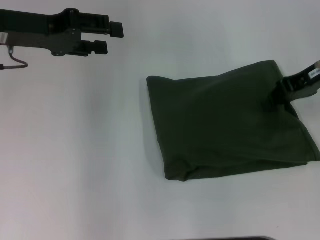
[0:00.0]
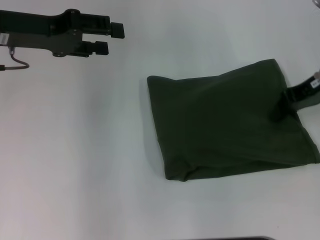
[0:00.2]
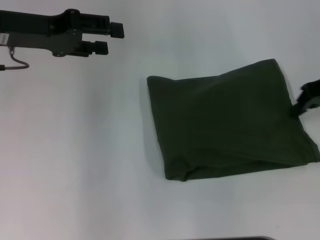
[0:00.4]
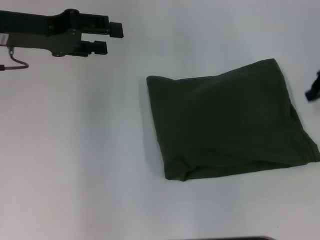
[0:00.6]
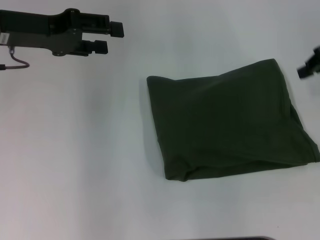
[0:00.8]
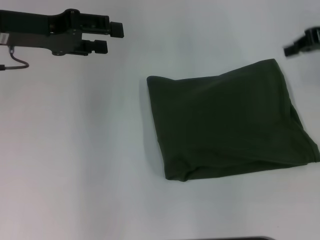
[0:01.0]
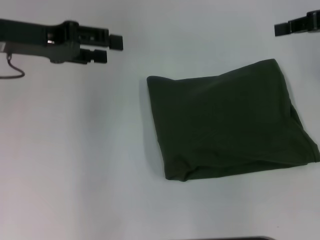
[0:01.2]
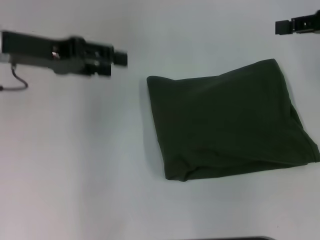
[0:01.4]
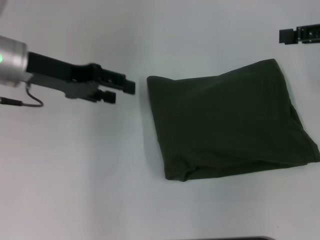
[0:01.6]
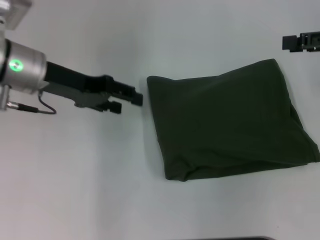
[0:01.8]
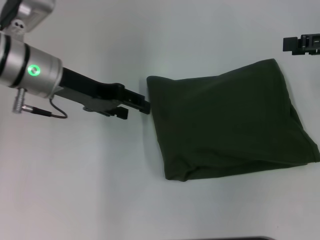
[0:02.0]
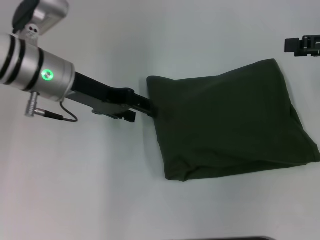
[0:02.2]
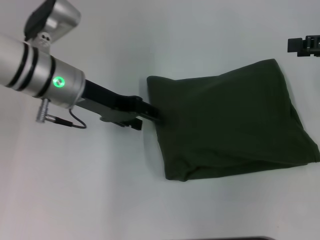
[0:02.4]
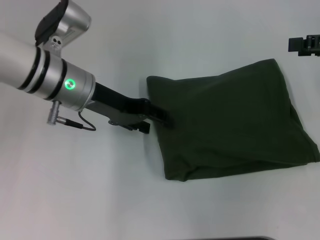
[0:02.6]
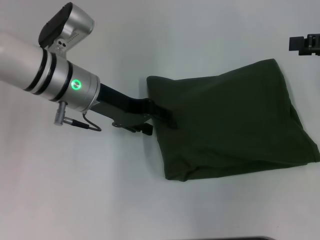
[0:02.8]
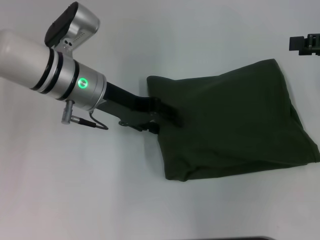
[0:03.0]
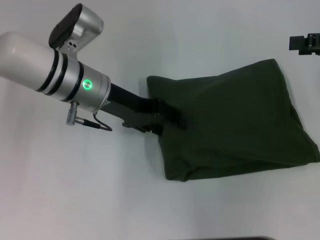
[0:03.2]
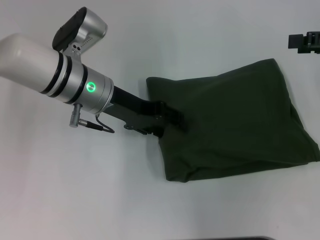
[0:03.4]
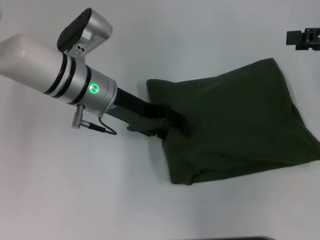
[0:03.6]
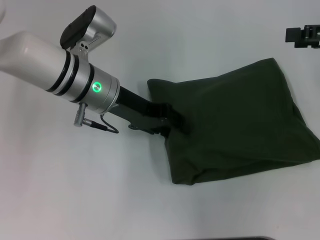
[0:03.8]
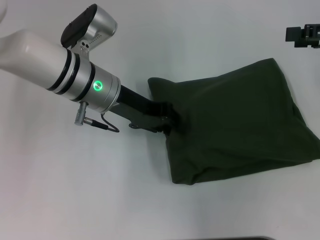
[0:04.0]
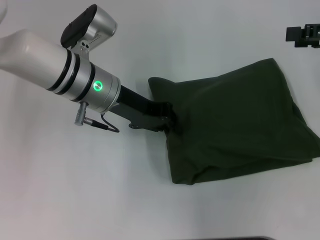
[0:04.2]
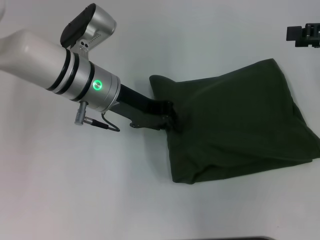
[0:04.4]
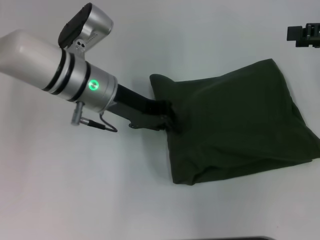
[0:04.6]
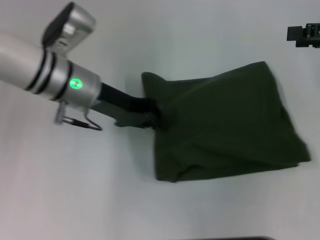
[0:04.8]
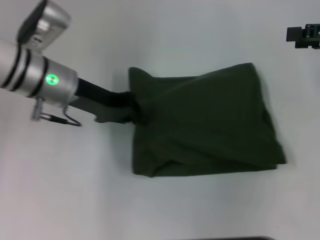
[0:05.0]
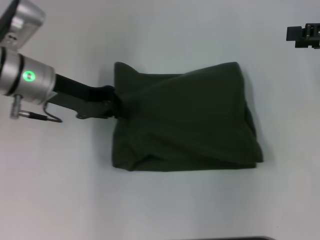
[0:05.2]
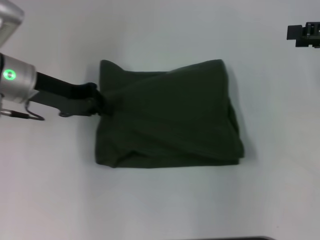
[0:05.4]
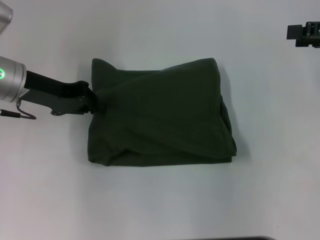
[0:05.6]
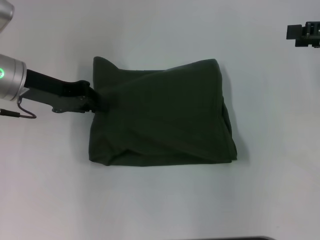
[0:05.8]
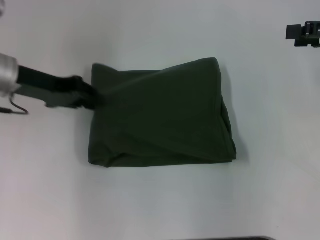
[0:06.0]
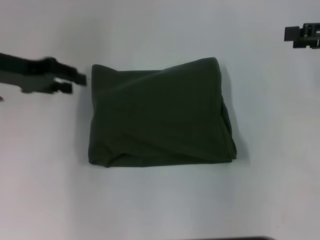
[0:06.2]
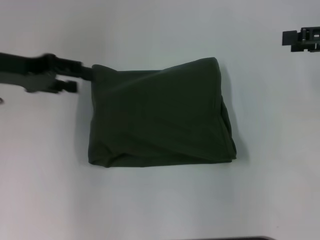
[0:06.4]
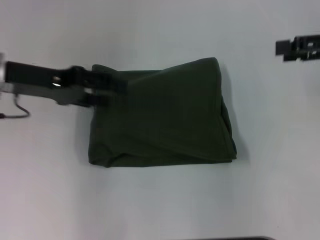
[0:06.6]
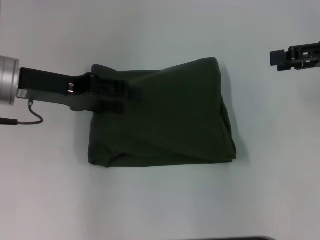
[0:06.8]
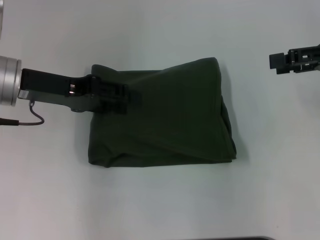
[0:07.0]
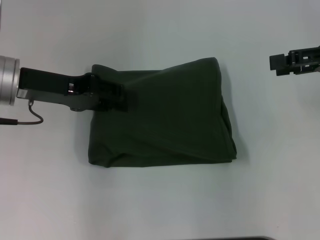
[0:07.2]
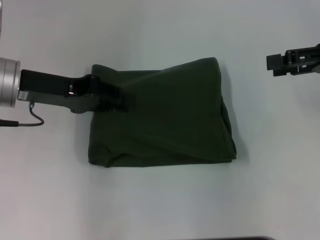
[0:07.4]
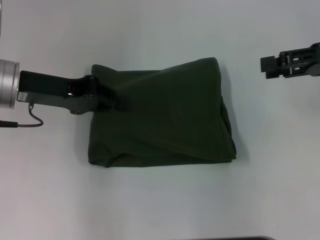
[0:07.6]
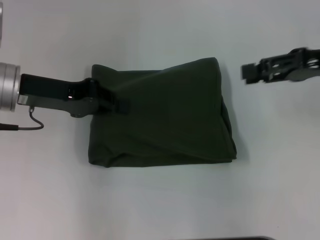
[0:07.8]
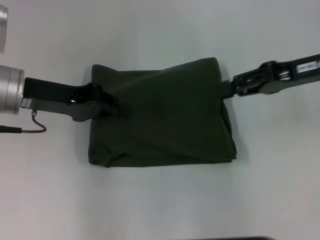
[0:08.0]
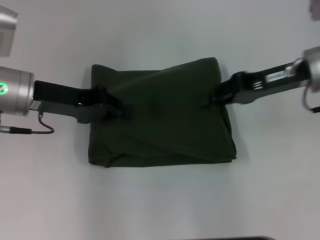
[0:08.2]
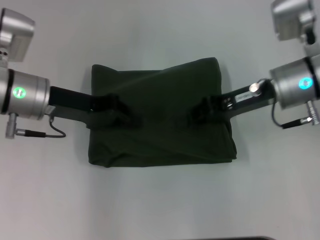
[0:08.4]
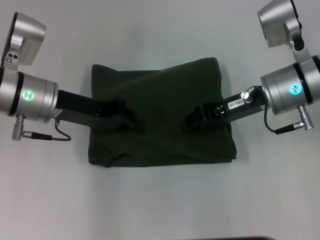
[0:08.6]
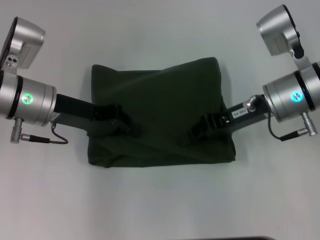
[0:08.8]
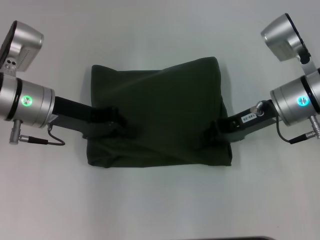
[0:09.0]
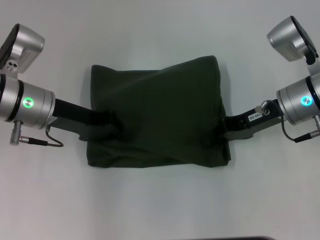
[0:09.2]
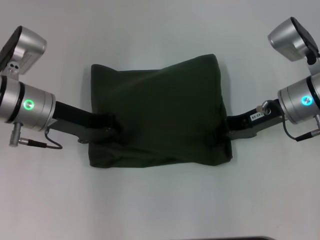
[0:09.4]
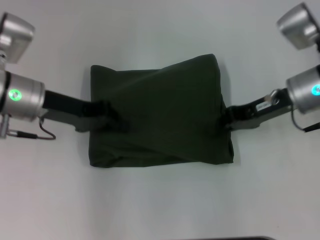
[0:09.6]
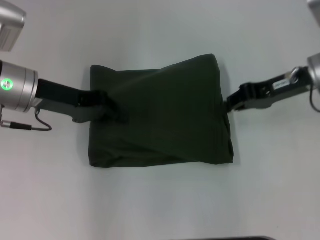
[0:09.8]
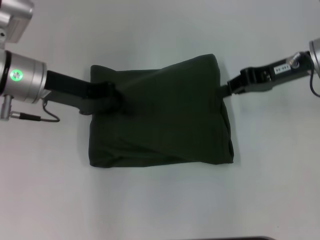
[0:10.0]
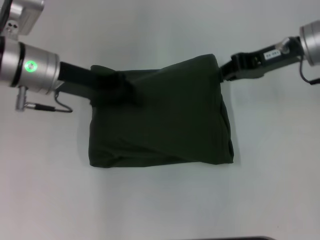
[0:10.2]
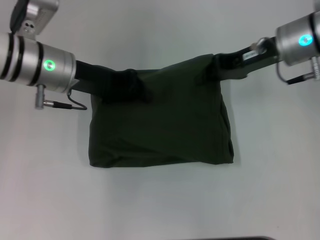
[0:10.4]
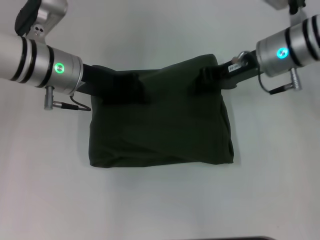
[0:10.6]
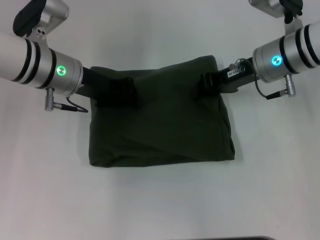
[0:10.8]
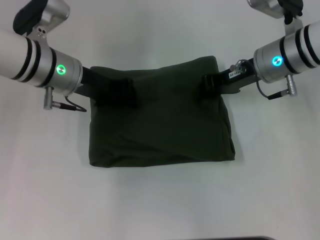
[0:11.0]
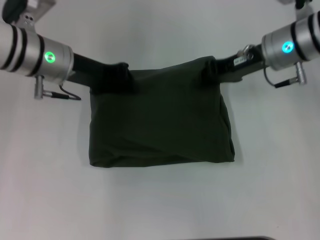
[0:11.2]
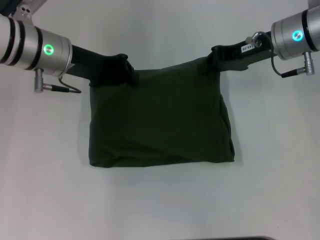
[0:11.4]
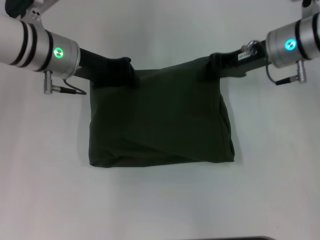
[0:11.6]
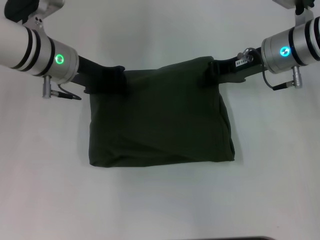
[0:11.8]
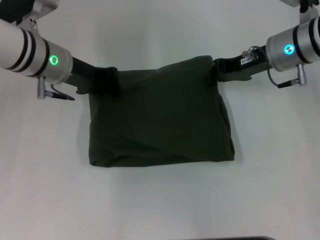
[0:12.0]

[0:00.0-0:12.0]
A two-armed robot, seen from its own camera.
0:00.0 to 0:01.6: The right gripper goes approximately 5 cm to the right.
0:01.6 to 0:03.0: The left gripper is displaced to the right by some 10 cm. The right gripper opens up.
0:03.0 to 0:04.4: The left gripper closes.
0:04.4 to 0:06.0: The left gripper goes some 15 cm to the left.
0:06.0 to 0:07.6: The left gripper opens and closes again.
0:07.6 to 0:09.0: The right gripper is displaced to the left and downward by about 15 cm, and closes; the left gripper shifts by about 5 cm.
0:09.0 to 0:10.4: The left gripper moves approximately 5 cm. Meanwhile the right gripper goes roughly 10 cm forward and upward.

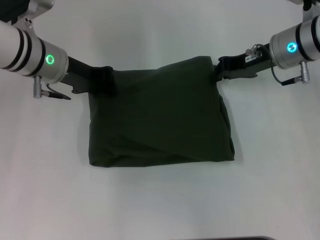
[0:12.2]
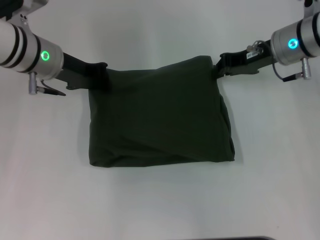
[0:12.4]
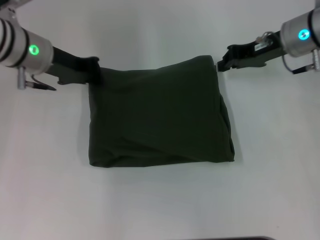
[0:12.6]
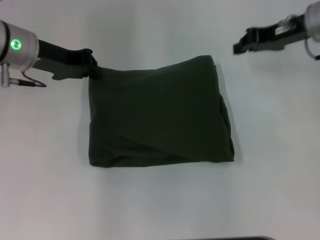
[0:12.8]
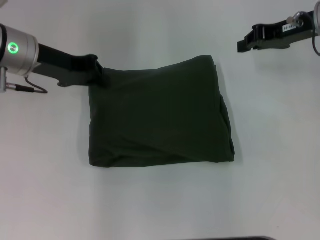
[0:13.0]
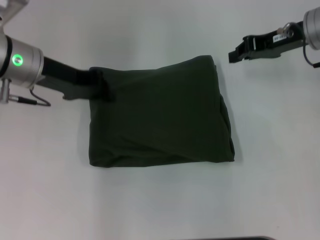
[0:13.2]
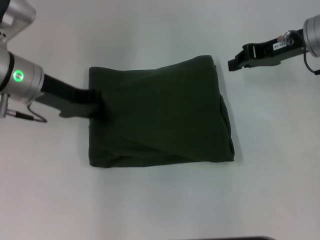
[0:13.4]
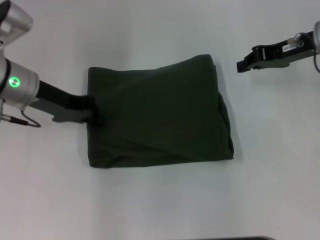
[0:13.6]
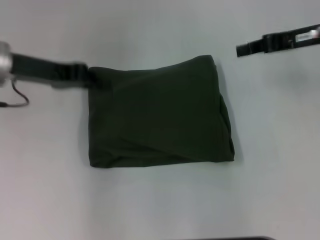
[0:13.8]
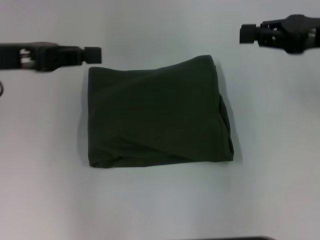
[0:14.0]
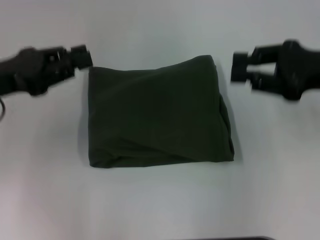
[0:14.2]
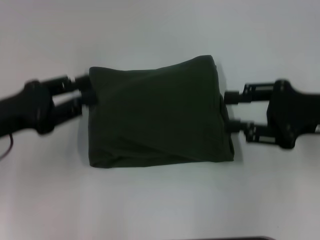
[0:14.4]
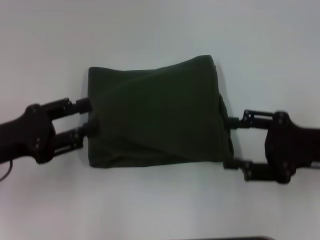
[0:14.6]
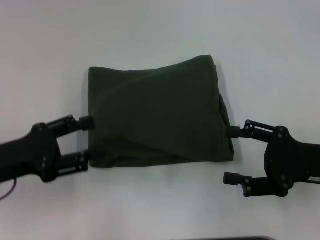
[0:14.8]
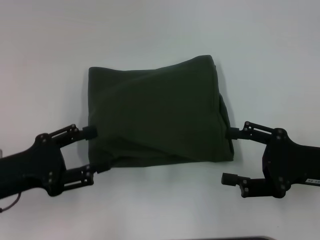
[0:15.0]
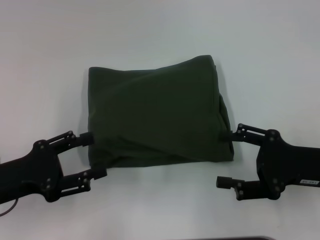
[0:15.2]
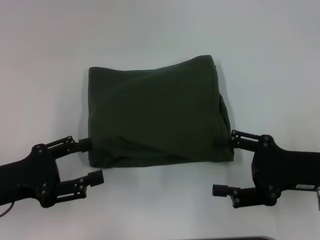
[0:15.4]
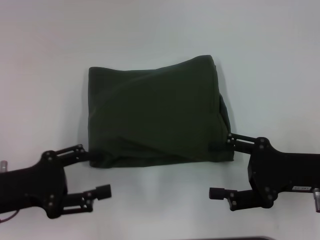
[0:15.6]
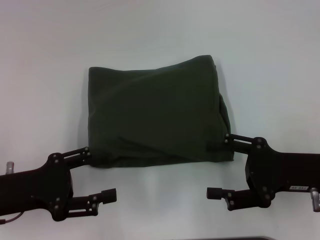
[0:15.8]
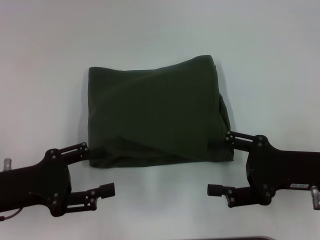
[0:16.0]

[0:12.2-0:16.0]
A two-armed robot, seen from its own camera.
0:12.2 to 0:13.4: The right gripper moves roughly 5 cm.
0:13.4 to 0:14.8: The left gripper moves backward and to the left, roughly 15 cm, and opens; the right gripper shifts approximately 20 cm backward and downward, and opens up.
0:14.8 to 0:16.0: The grippers stay close to where they were, moving slightly.

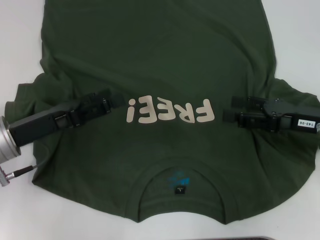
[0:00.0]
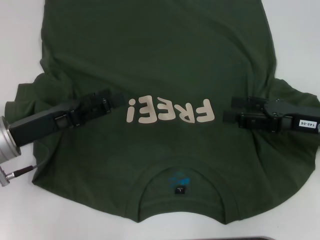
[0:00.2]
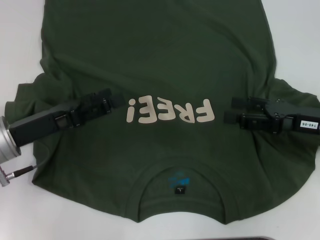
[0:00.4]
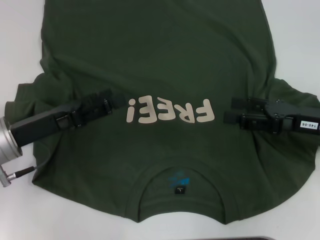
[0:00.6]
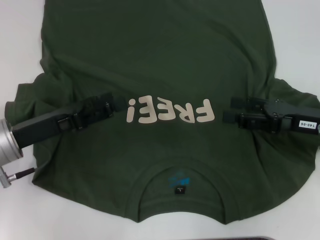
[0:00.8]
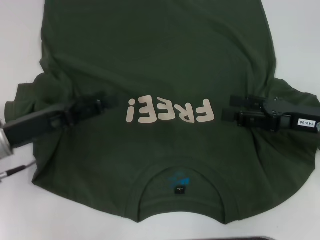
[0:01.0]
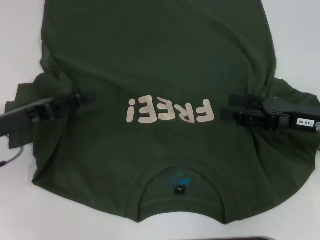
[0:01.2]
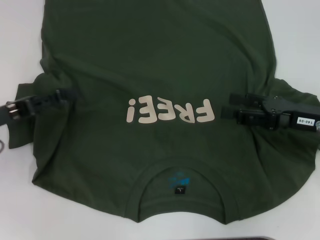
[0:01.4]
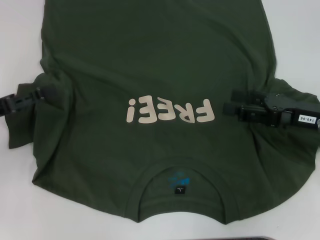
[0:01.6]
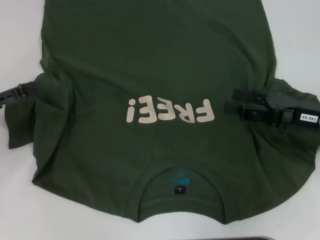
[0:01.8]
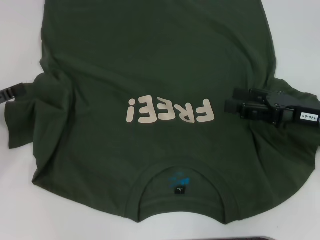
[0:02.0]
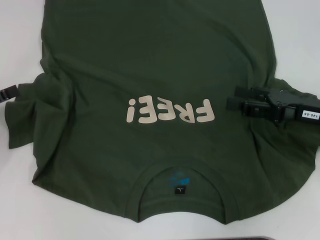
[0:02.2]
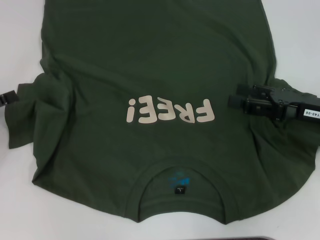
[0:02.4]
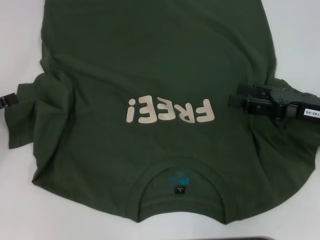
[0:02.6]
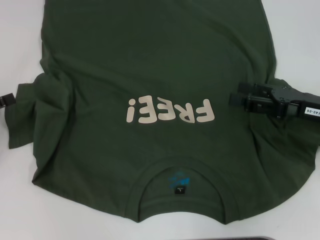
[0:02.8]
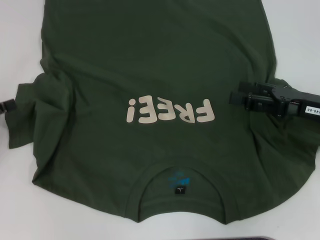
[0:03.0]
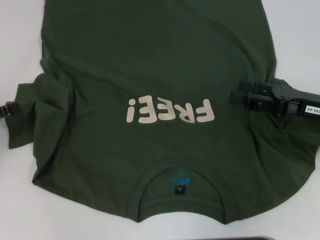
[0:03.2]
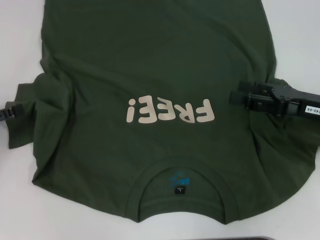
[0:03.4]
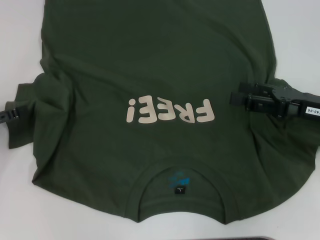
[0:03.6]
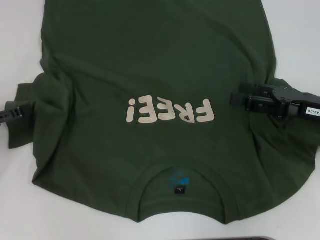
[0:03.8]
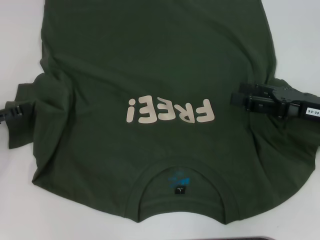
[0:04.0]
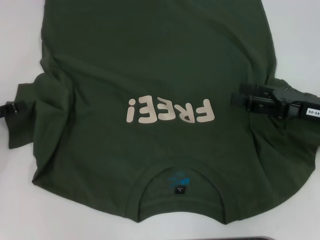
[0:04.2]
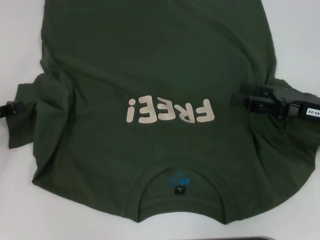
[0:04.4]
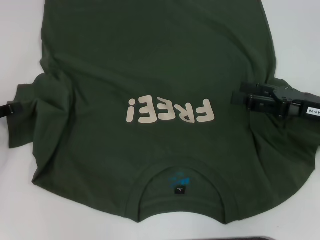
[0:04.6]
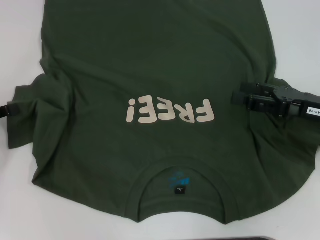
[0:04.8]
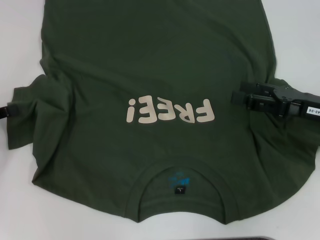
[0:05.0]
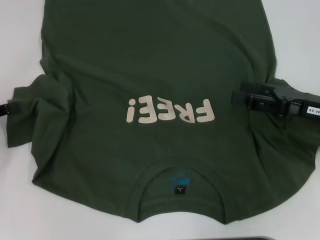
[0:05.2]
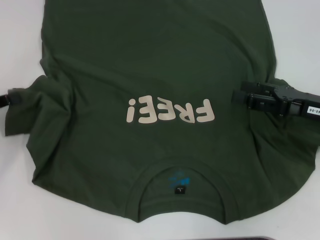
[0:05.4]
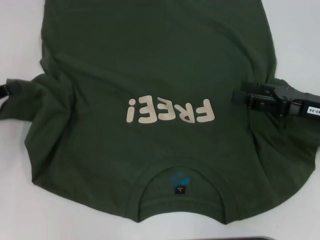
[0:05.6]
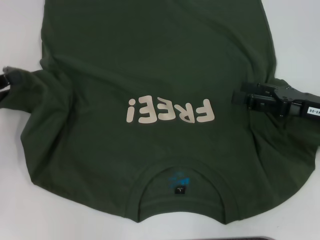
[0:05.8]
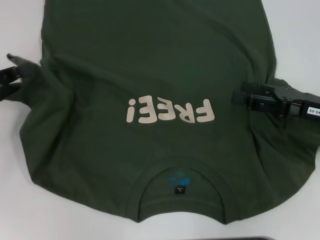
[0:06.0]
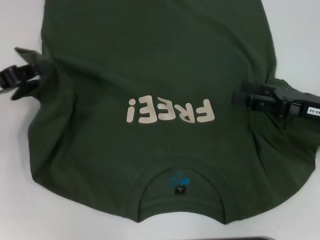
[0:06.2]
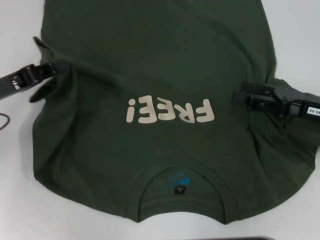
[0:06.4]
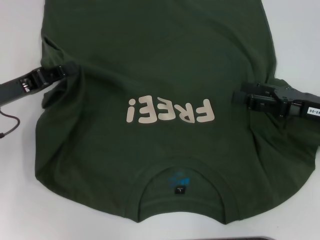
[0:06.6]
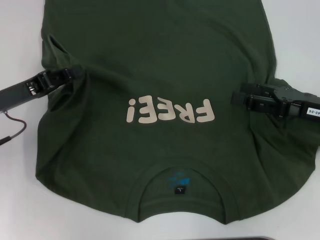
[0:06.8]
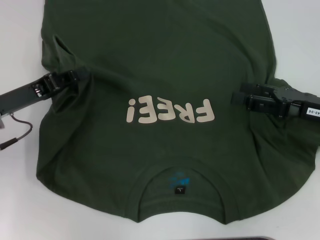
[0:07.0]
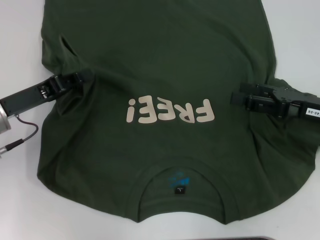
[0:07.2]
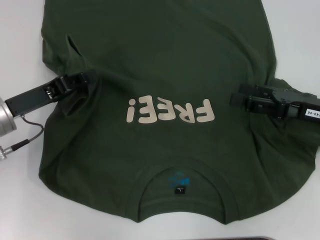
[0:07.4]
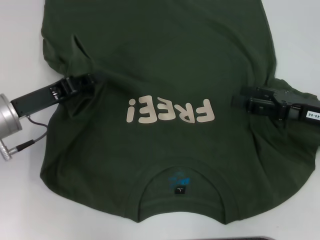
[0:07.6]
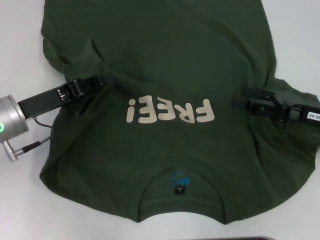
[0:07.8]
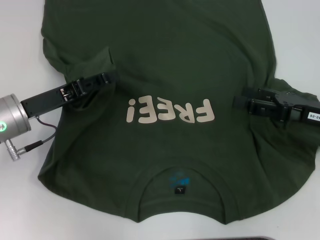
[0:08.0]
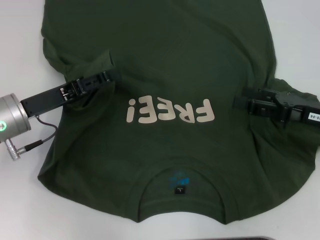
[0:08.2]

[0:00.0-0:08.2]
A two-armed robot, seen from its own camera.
0:00.0 to 0:01.6: The left gripper travels to the left by approximately 10 cm.
0:01.6 to 0:03.2: There are only small adjustments of the grippers.
0:05.0 to 0:06.6: The left gripper is displaced to the right by some 10 cm.
0:06.6 to 0:08.2: The left gripper ends up approximately 5 cm from where it was, and opens up.
